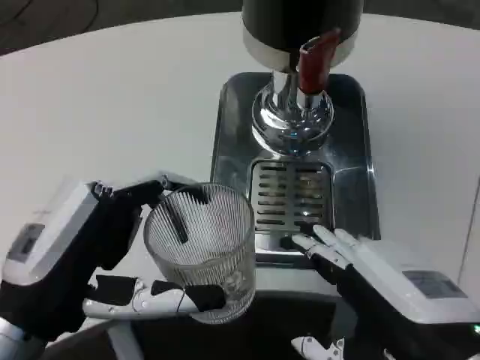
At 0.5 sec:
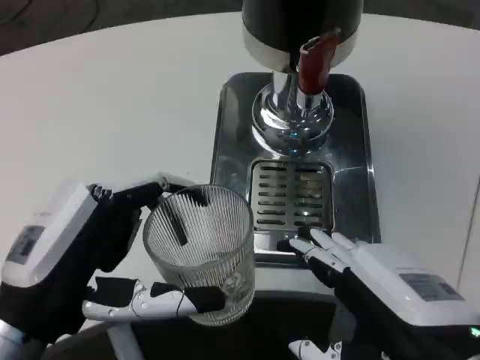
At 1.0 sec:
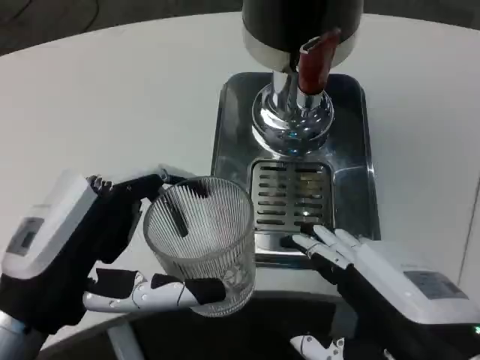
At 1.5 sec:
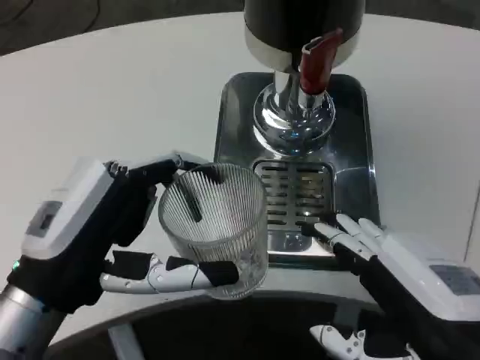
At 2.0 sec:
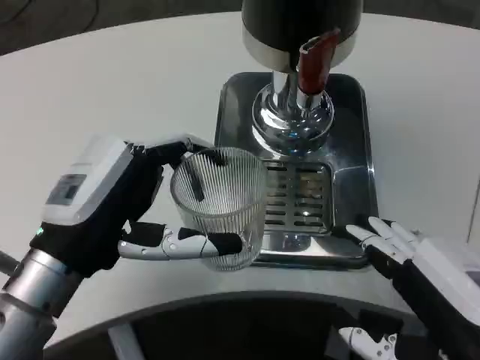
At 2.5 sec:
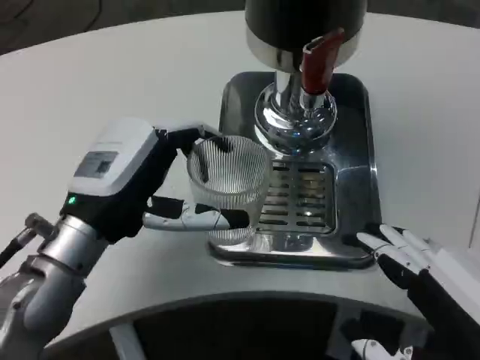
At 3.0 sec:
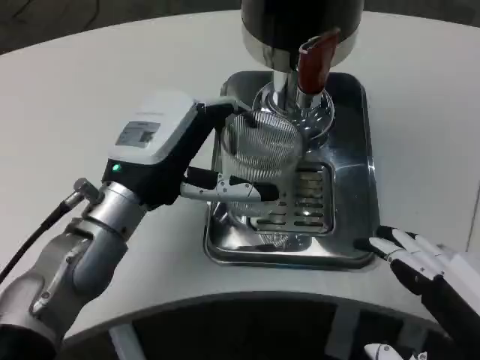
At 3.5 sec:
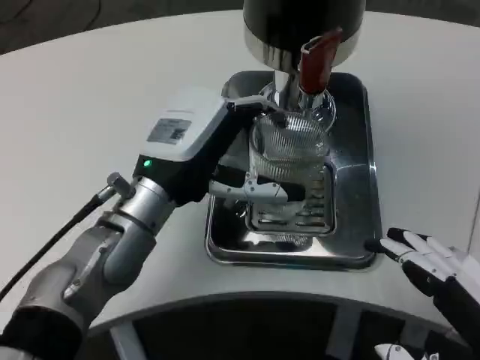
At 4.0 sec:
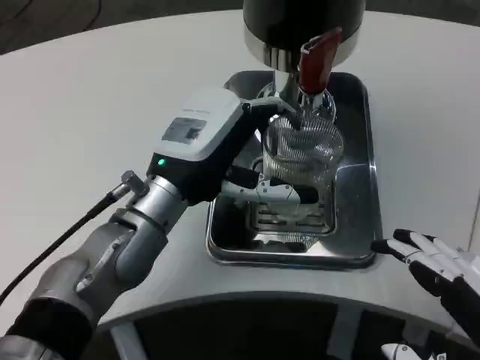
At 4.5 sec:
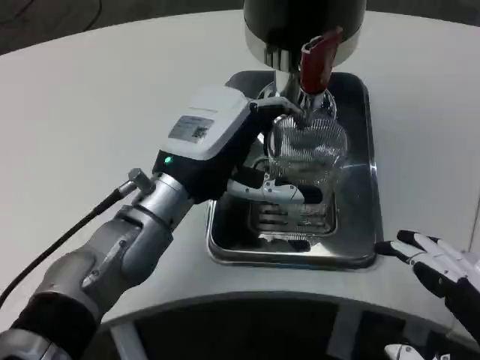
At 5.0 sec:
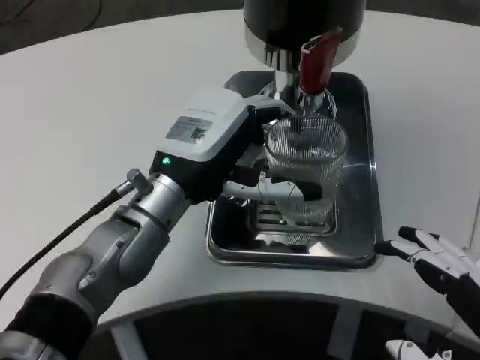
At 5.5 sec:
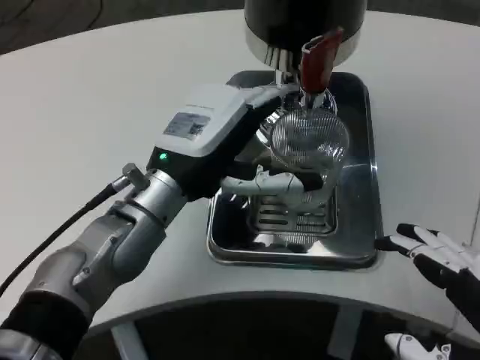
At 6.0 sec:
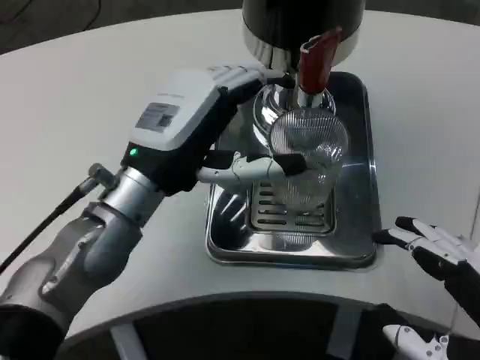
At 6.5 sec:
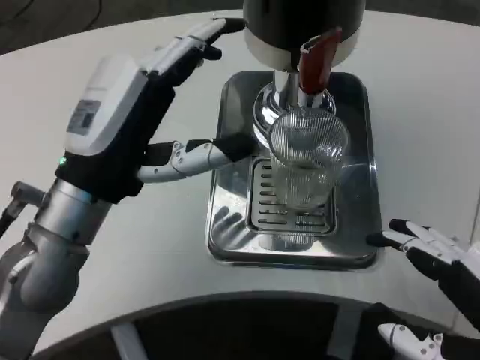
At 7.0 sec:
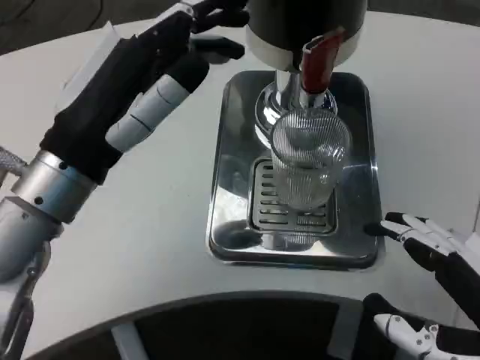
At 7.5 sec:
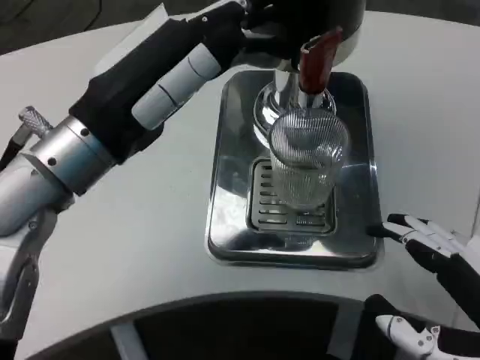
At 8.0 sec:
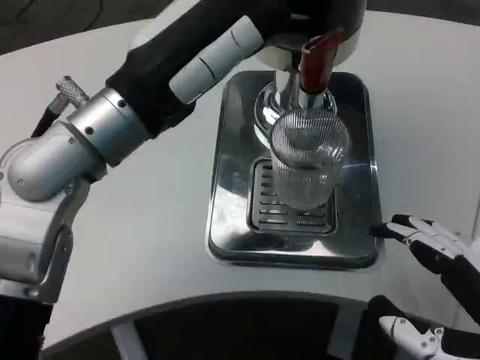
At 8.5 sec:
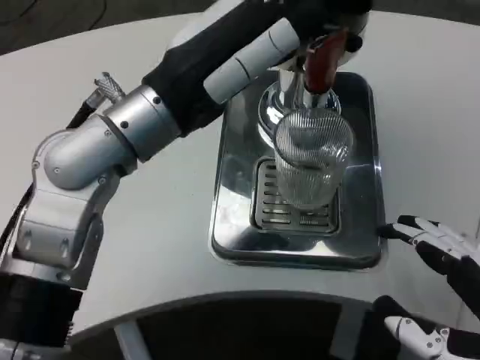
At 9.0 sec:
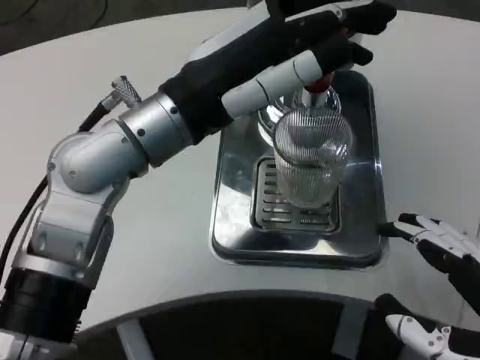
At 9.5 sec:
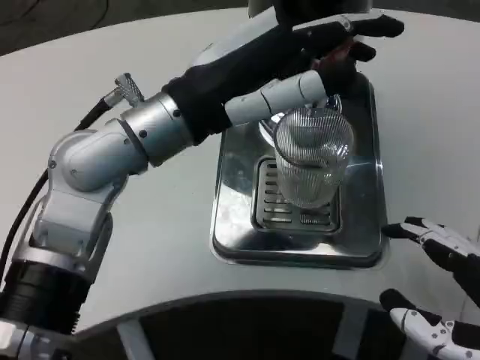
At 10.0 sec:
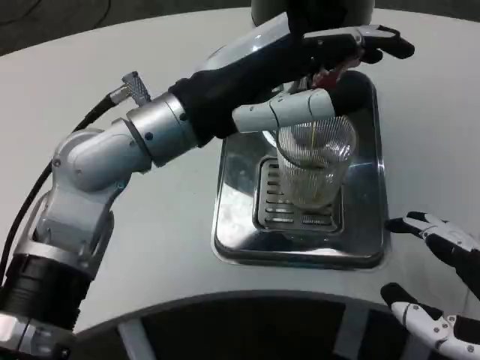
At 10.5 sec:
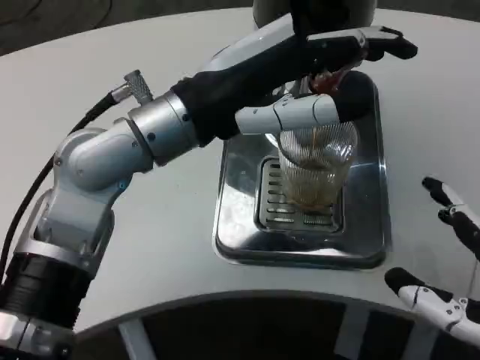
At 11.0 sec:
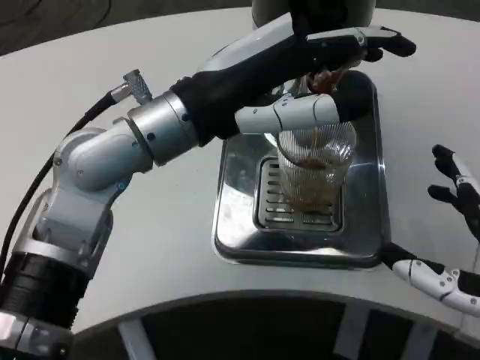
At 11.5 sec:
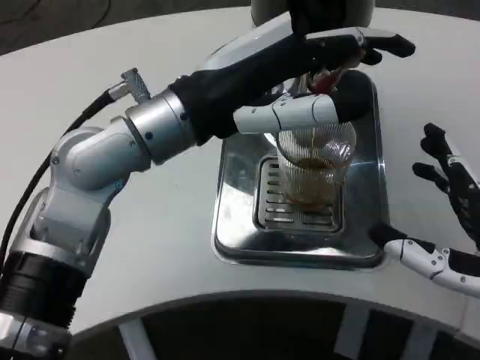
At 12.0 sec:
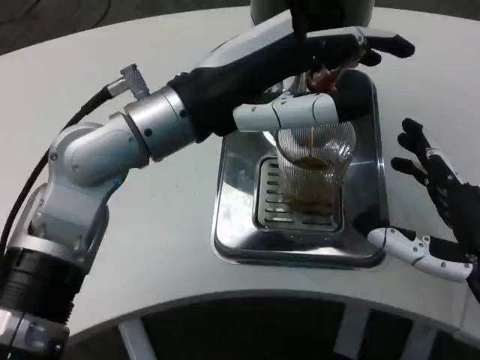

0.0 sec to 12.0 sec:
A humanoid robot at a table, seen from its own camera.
Task of the whole recording: Grasp the cup under the faucet to collect the drink, then remove the cup.
0.0 sec to 2.0 sec: The left hand heads forward, covering roughly 5 cm.
2.0 sec to 4.0 sec: The left hand is displaced forward and to the right by some 10 cm.
6.0 sec to 8.0 sec: The left hand travels upward by roughly 10 cm.
10.0 sec to 12.0 sec: The right hand is displaced forward by about 10 cm.

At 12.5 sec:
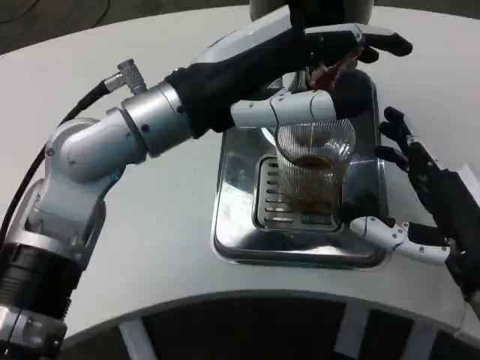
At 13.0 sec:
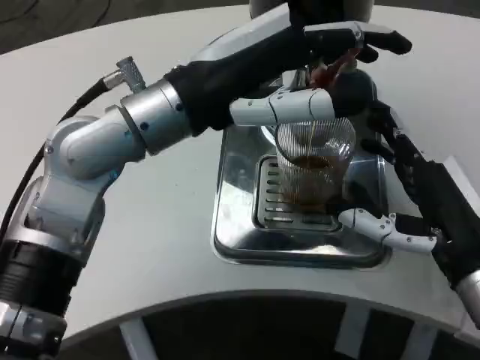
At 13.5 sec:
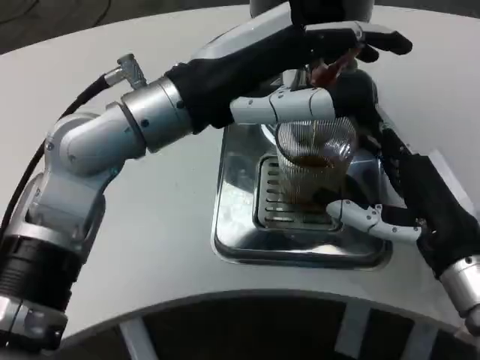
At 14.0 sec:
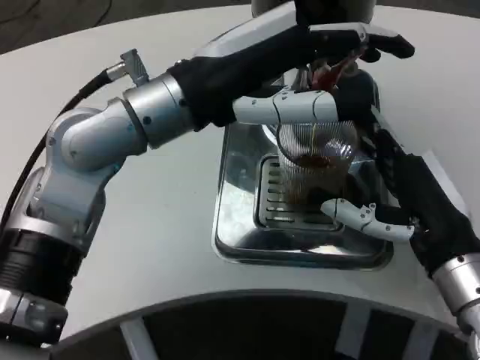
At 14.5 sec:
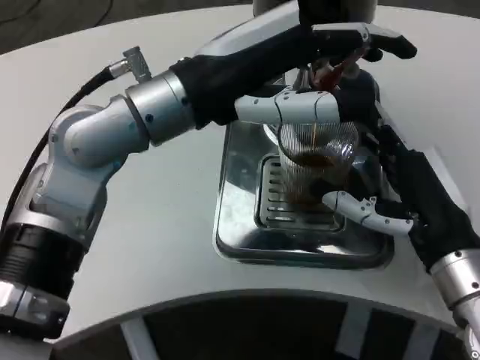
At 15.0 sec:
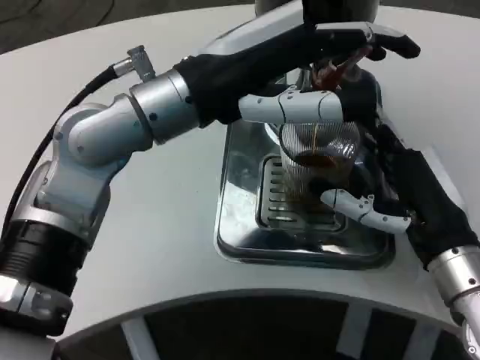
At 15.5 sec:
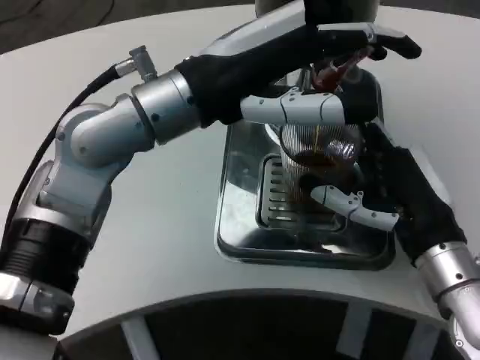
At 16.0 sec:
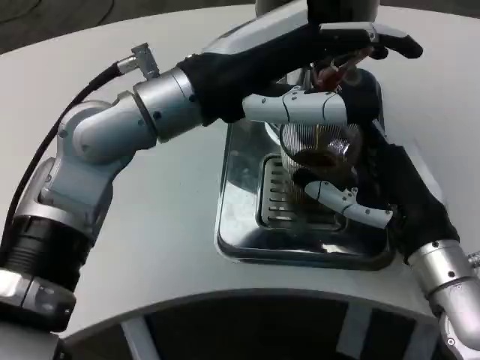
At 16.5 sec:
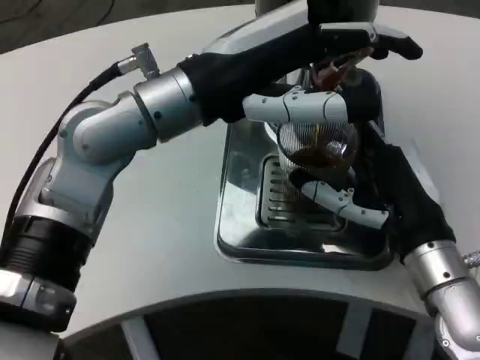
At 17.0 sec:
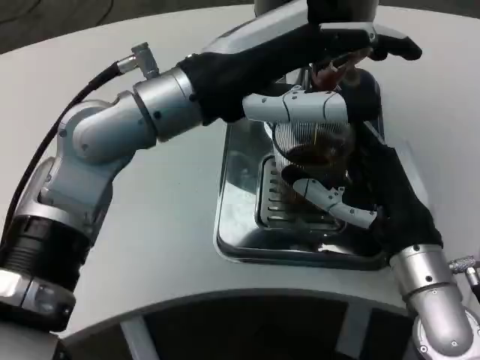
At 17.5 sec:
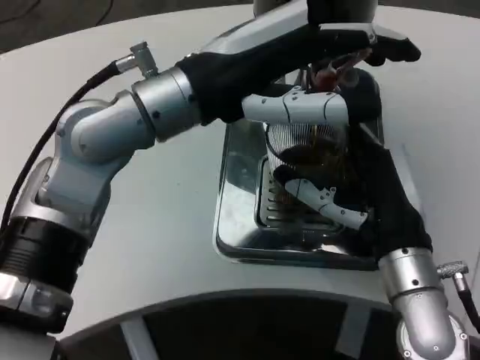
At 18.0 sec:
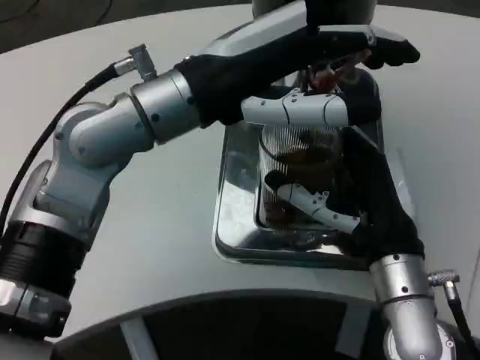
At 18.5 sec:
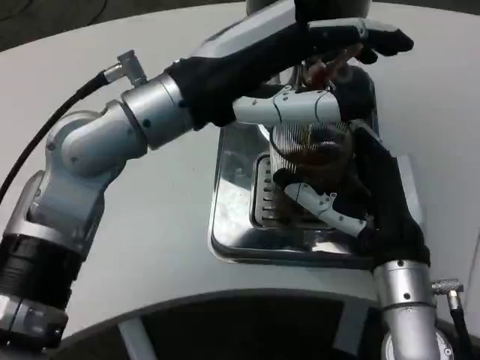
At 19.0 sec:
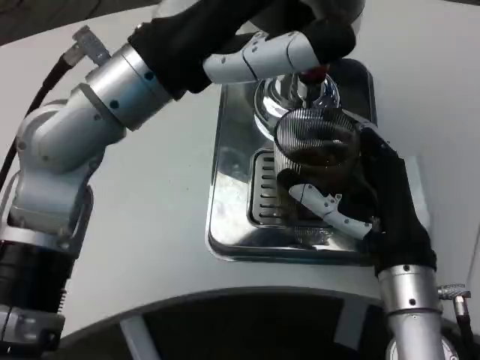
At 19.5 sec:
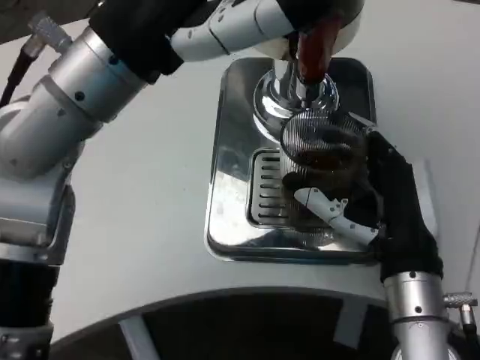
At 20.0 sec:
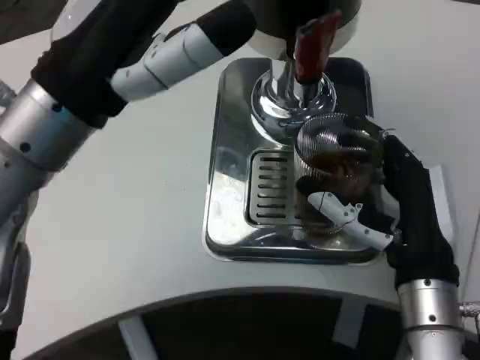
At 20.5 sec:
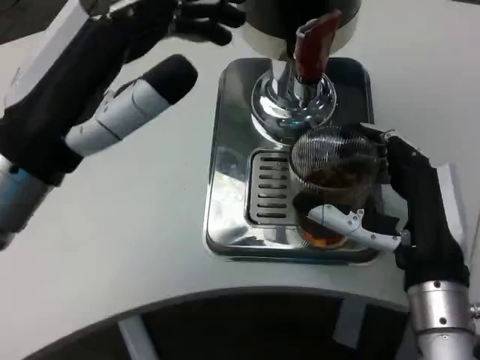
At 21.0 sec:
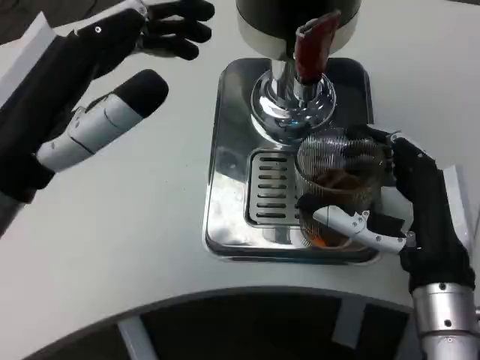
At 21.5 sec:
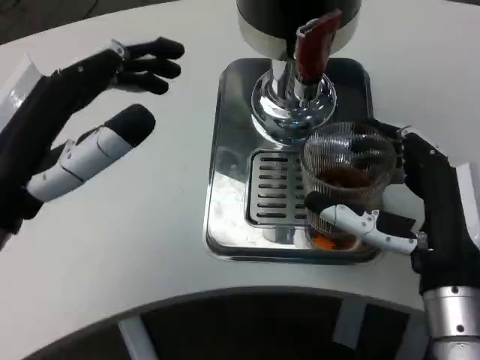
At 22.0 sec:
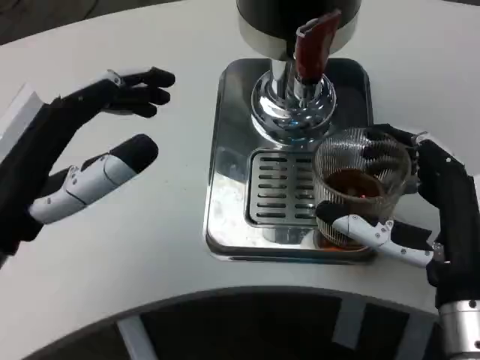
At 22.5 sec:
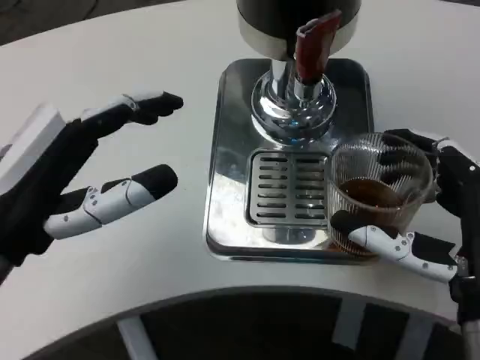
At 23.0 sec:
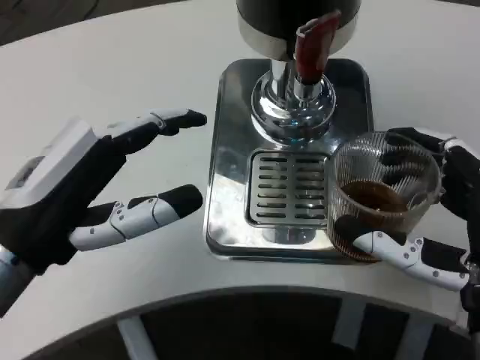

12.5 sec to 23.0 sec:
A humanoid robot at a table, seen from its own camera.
Task of the whole recording: Grasp the cup under the faucet to collect the drink, then remove the cup.
16.5 sec to 19.0 sec: The right hand changes place by roughly 5 cm.
19.0 sec to 21.0 sec: The left hand shifts about 15 cm backward, to the left and downward.
21.0 sec to 23.0 sec: The right hand is displaced backward by some 5 cm.

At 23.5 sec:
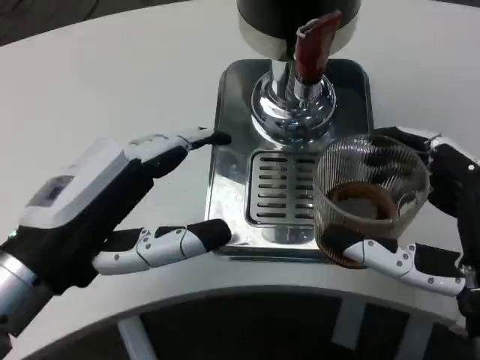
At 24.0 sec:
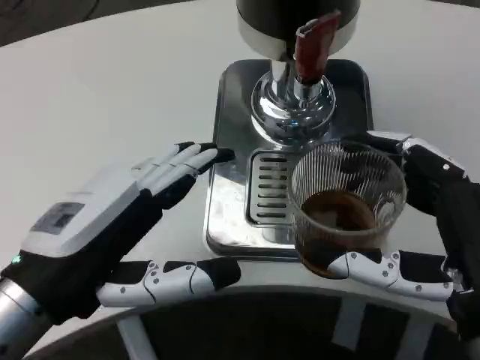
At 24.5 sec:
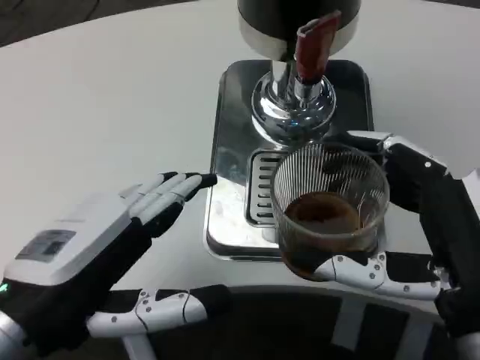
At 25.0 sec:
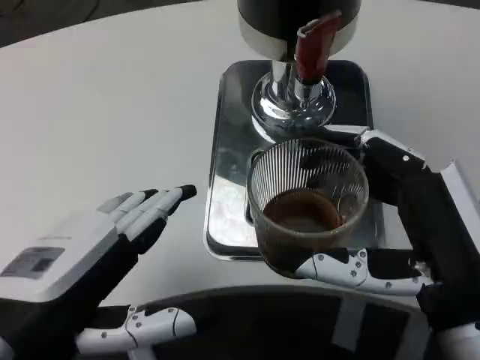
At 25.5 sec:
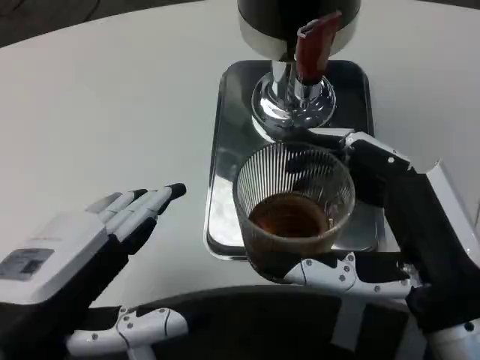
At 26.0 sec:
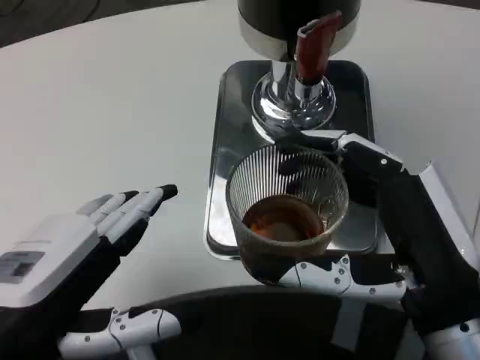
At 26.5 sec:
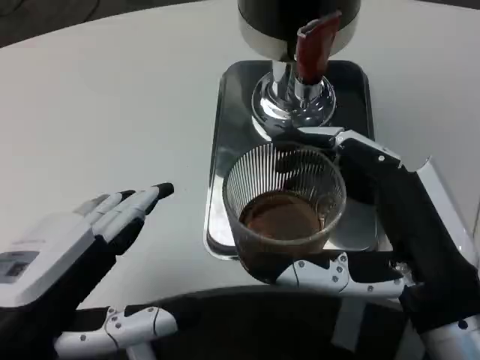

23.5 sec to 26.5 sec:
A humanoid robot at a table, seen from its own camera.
Task of the whole recording: Grasp the cup under the faucet to collect the drink, then remove the cup.
23.5 sec to 25.0 sec: The left hand is displaced backward by some 5 cm.
